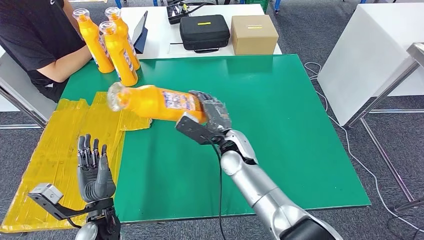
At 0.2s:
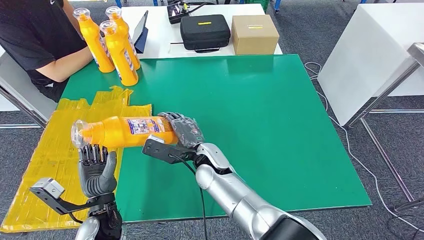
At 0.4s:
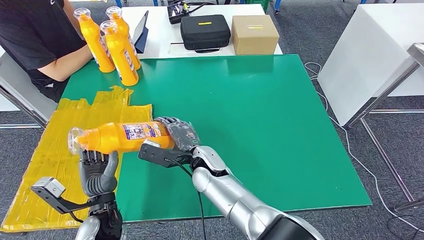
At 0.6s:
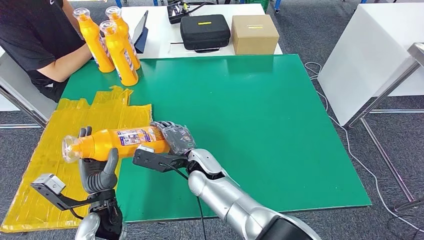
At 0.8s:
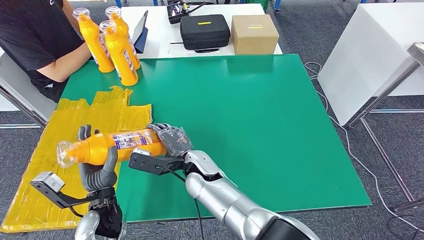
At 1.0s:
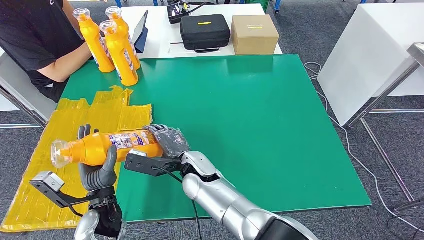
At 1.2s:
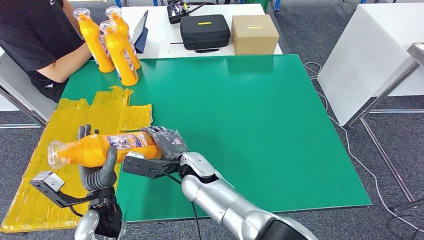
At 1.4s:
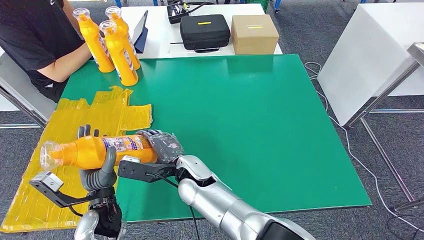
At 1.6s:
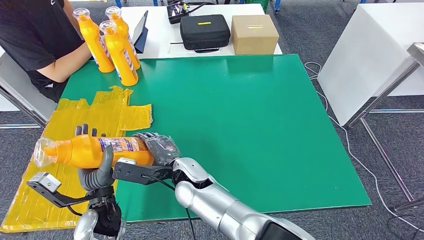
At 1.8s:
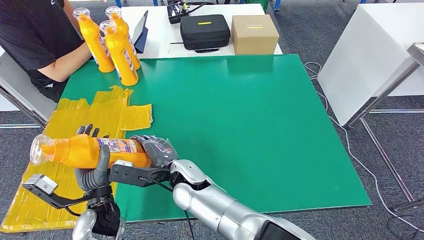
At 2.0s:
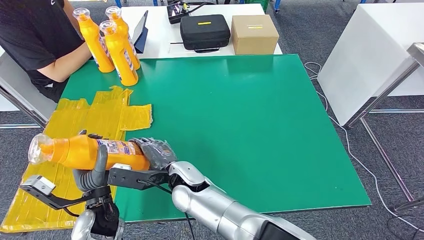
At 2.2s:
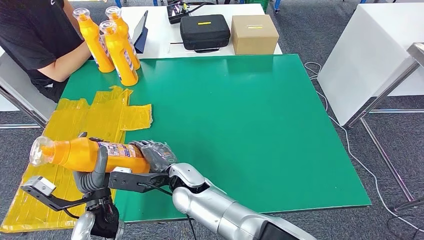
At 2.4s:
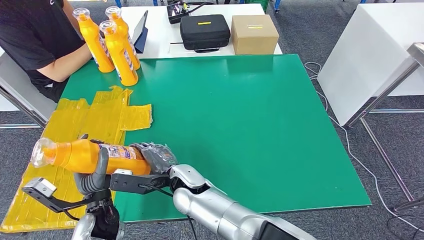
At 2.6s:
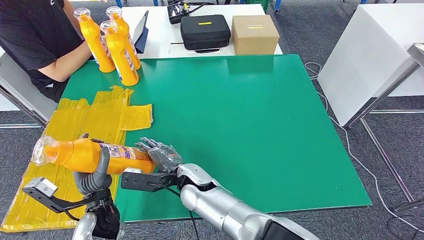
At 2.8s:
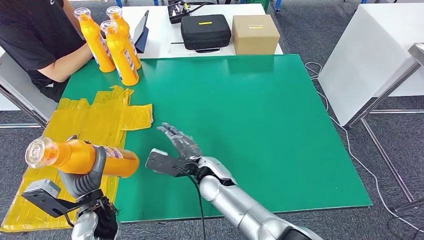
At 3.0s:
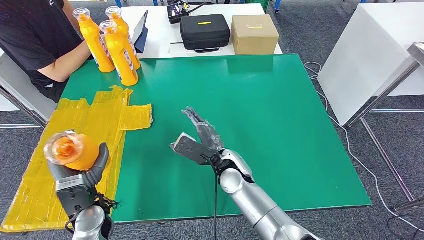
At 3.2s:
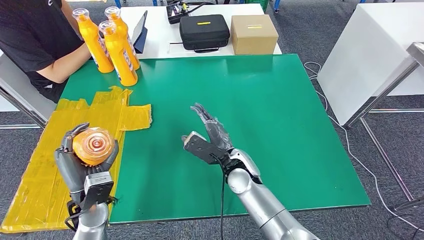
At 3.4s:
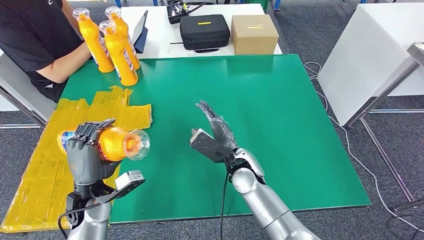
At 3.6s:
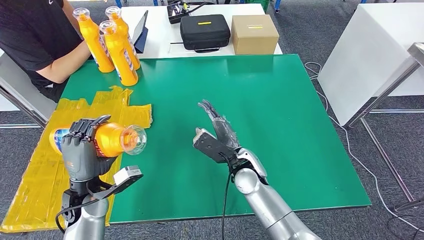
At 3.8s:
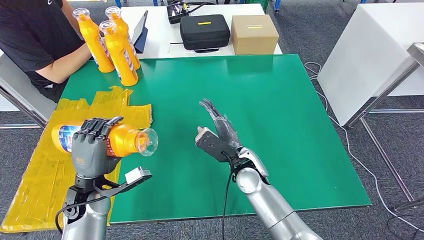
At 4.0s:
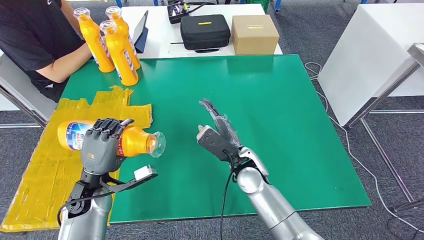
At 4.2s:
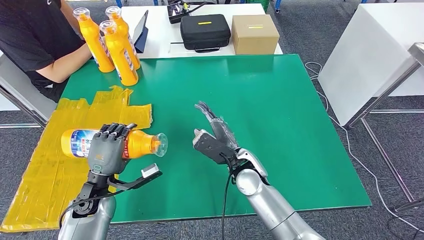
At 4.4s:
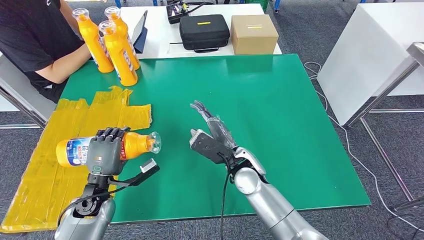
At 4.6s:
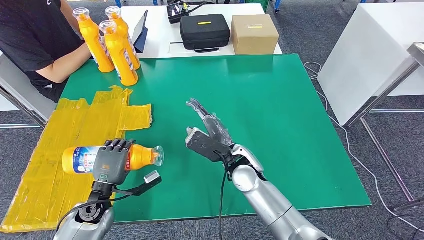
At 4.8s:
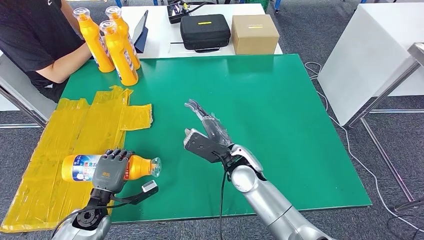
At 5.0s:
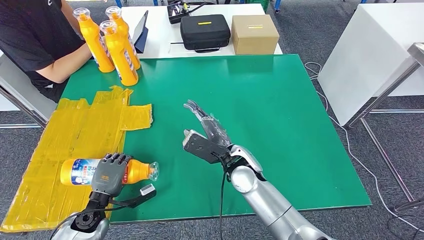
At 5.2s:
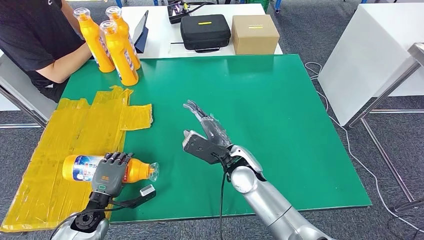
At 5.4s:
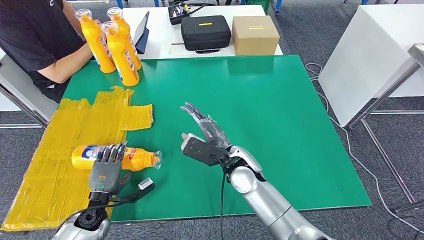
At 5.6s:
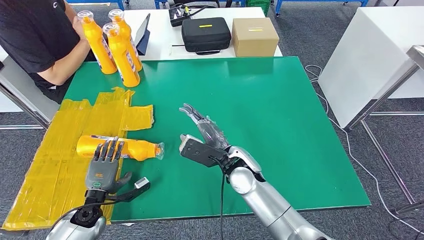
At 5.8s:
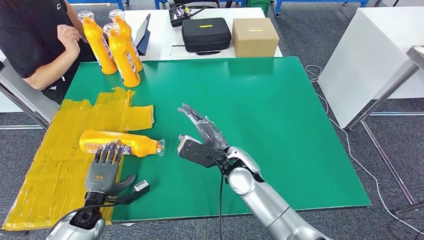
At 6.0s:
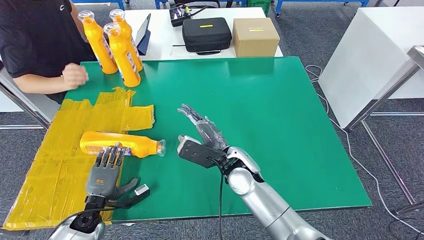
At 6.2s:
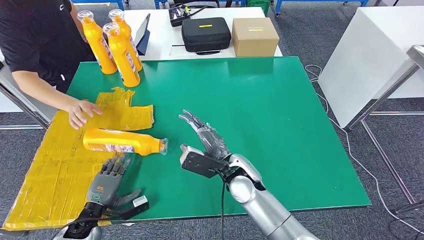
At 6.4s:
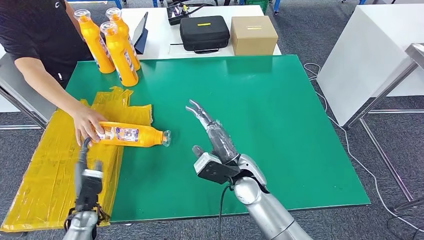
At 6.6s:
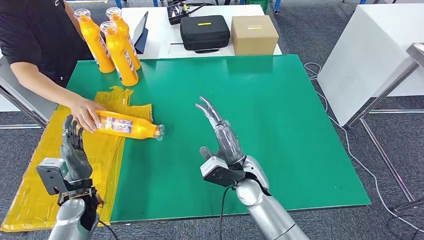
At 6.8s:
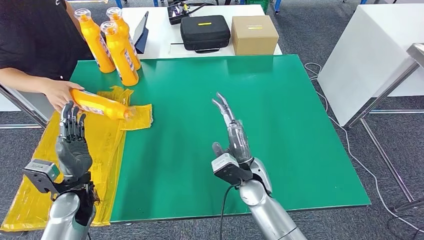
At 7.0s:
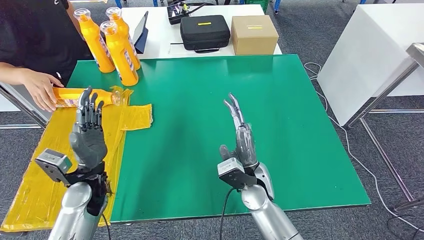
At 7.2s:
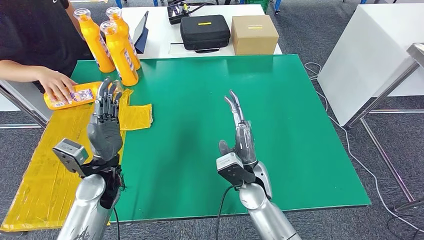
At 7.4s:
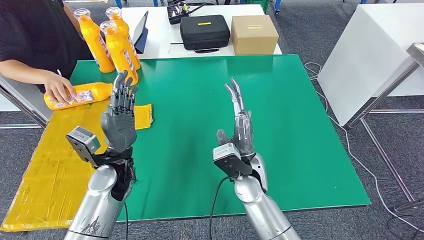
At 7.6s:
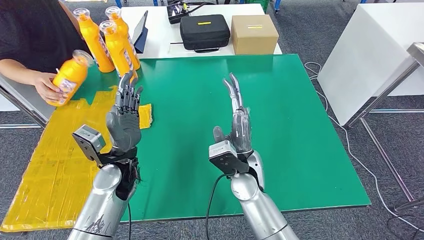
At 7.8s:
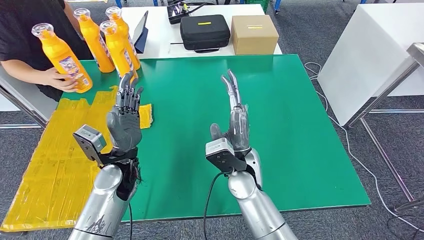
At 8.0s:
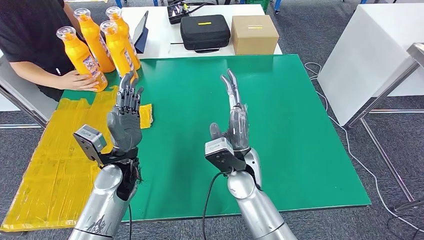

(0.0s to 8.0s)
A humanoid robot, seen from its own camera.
Step, 0.4s - 8.0s: Flip the bottle to face forward.
0.0s - 1.6s: The right hand heads to the left and backward, covering some 10 cm.
1.6s - 3.2s: The right hand goes some 15 cm to the right.
3.2s - 4.8s: The left hand shifts about 10 cm downward.

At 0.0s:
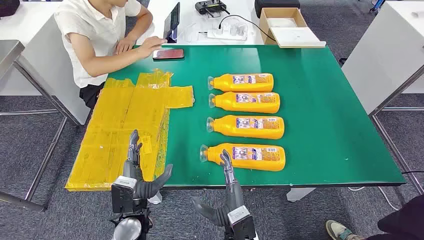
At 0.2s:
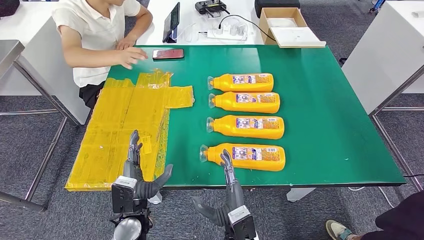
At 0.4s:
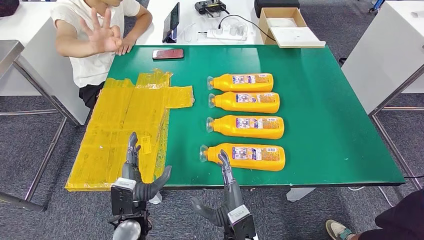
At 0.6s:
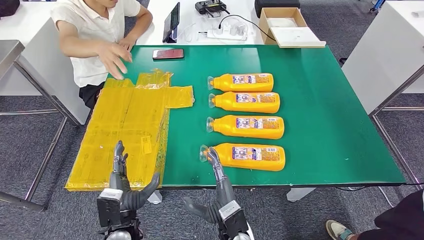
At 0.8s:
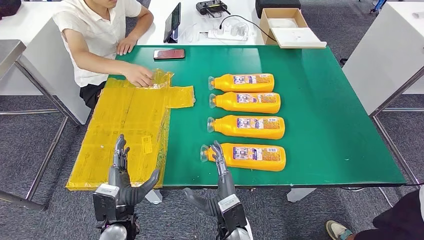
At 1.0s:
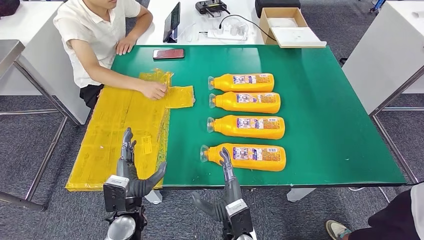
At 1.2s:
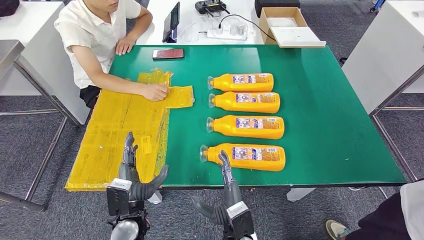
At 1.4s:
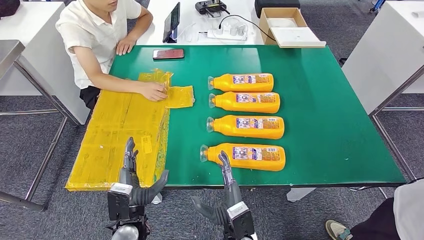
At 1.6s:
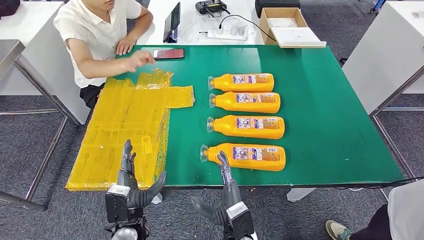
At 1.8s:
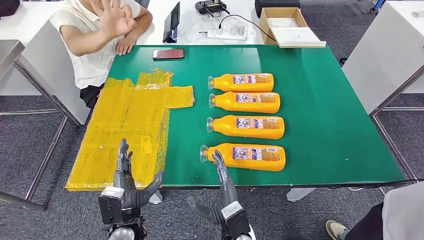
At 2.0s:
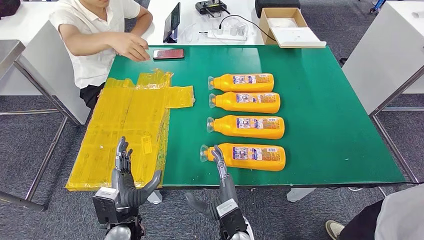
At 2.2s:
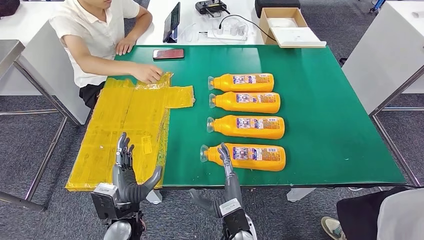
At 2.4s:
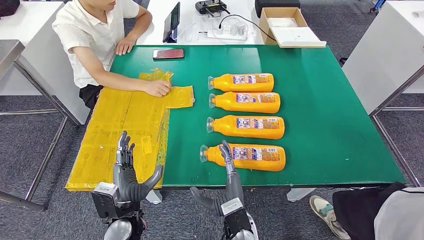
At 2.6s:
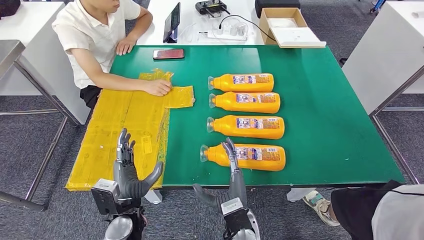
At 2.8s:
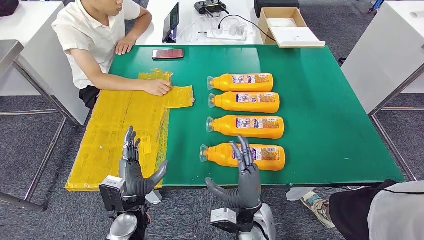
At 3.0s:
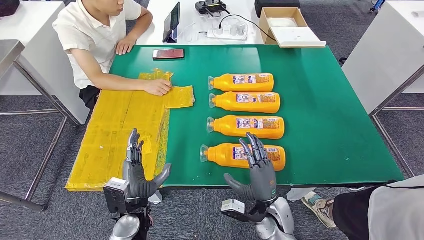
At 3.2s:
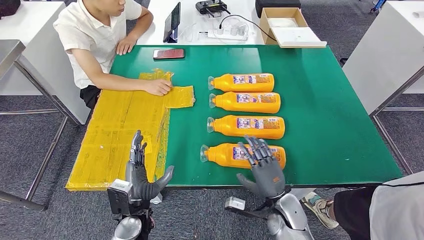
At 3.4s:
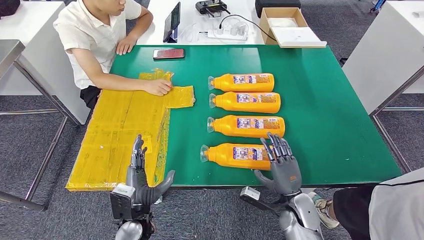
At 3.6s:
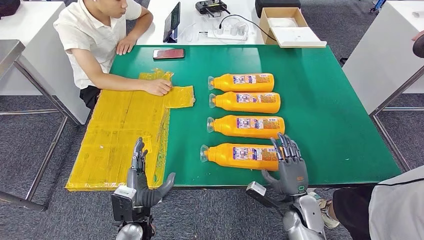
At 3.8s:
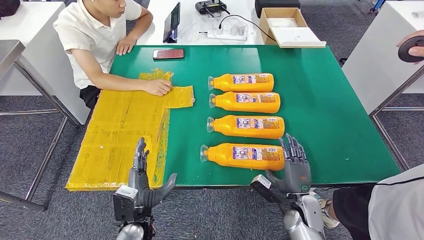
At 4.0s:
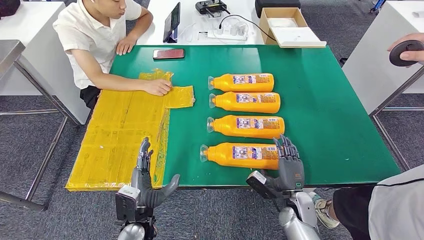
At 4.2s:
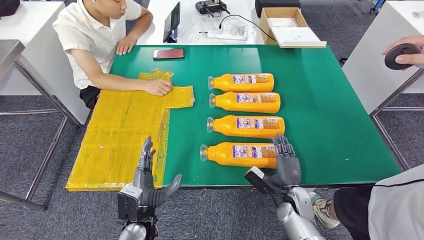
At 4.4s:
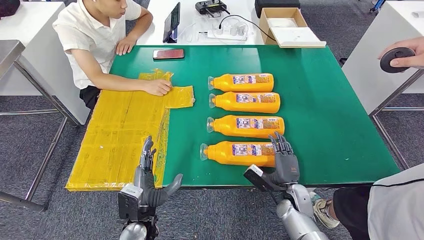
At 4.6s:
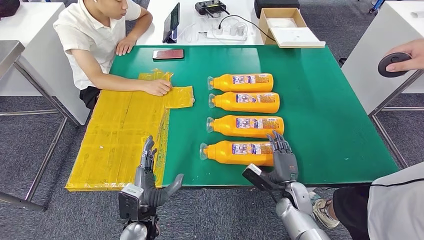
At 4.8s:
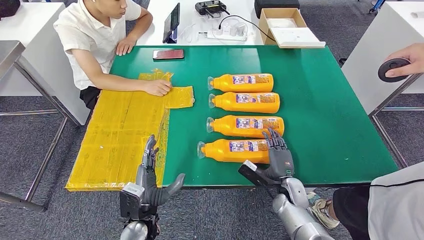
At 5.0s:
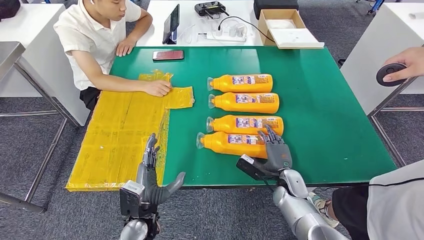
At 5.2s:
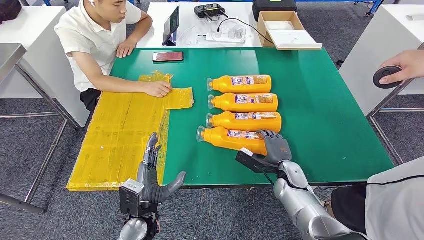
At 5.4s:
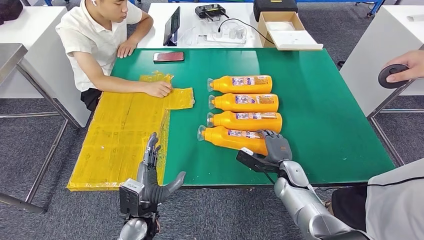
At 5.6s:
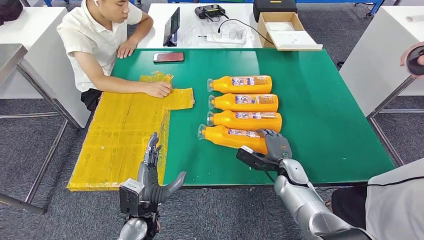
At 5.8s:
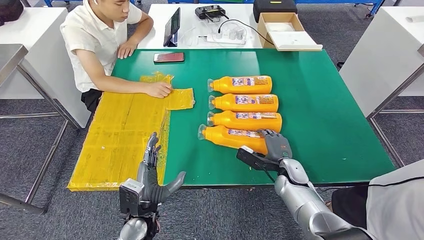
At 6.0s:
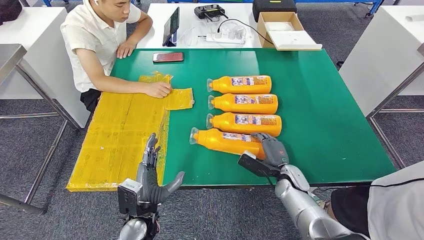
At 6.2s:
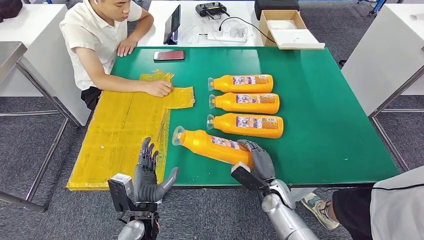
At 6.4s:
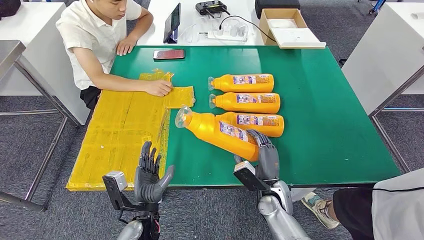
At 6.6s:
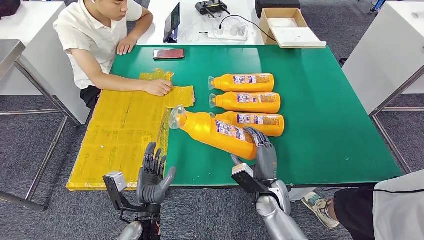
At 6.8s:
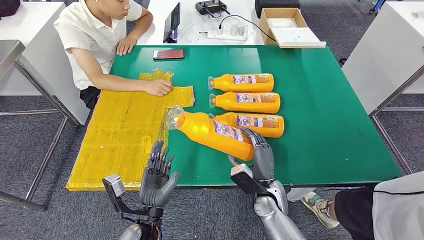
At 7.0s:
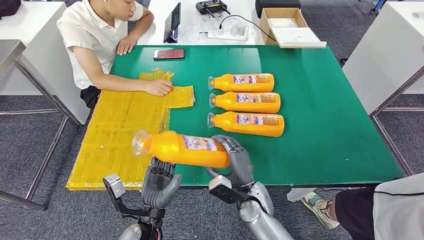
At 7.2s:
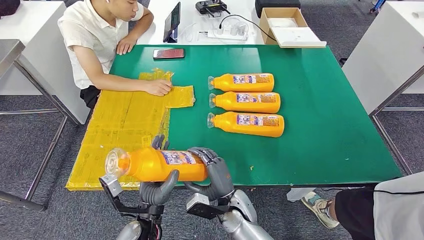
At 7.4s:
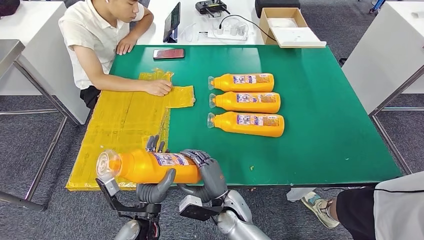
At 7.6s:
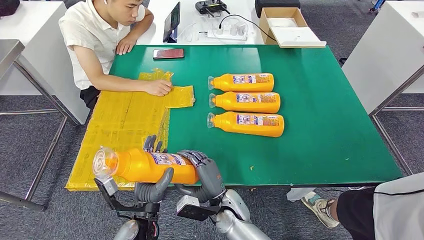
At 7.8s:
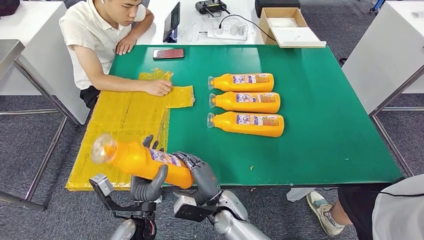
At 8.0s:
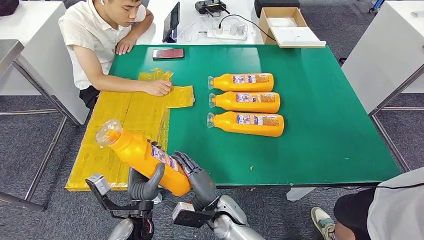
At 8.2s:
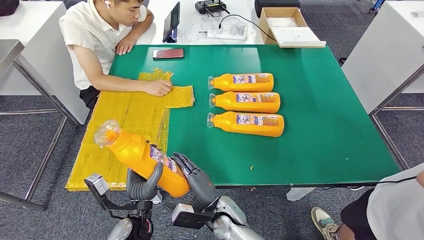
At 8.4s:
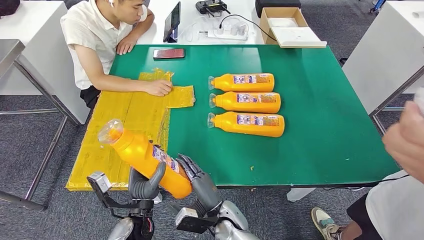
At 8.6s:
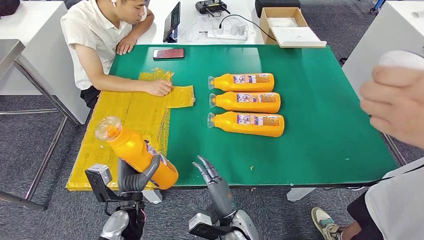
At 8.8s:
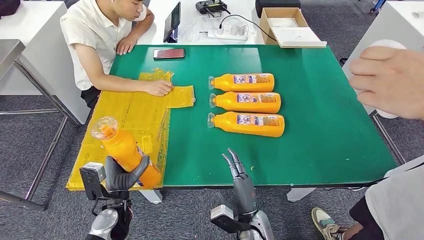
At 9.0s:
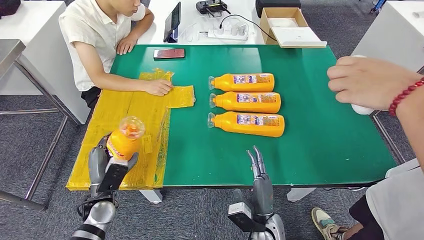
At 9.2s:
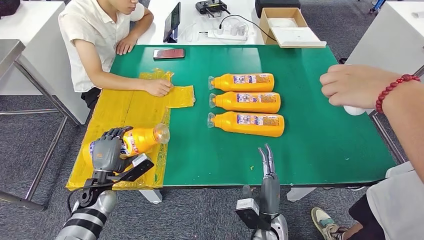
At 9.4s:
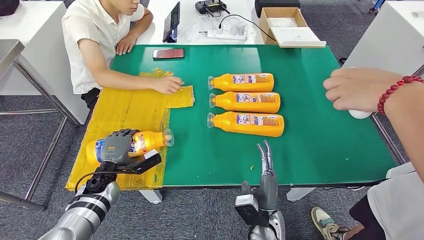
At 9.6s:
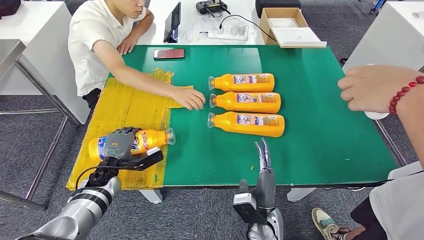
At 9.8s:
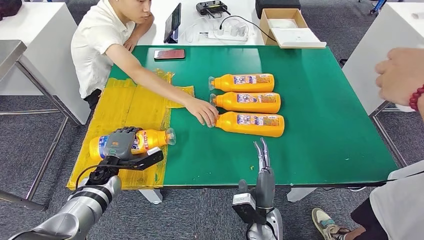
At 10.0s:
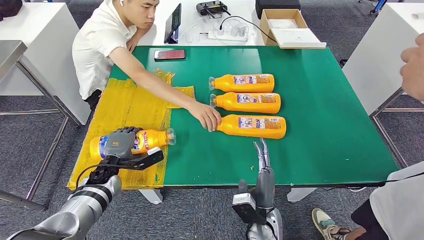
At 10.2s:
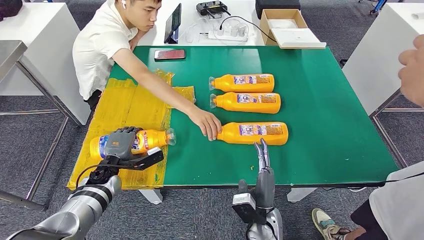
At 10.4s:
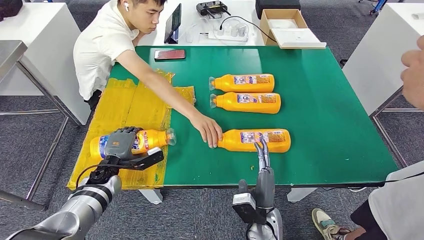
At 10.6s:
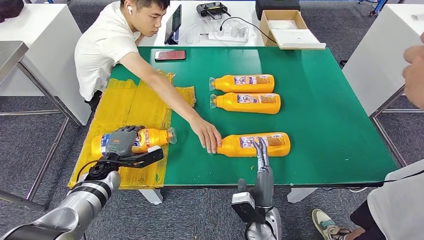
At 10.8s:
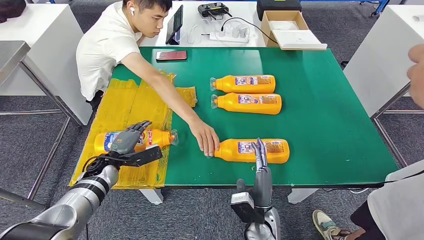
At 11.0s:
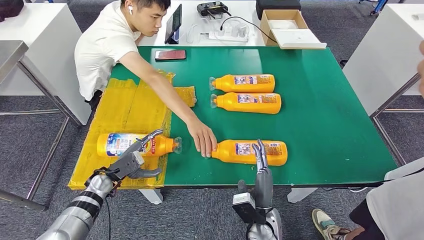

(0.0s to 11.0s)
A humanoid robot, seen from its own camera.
Step, 0.0s - 7.2s: Take the bottle from the table.
1.6s - 3.2s: The right hand shifts approximately 15 cm to the right and forward.
3.2s - 4.8s: The right hand ends up some 5 cm from where it was.
